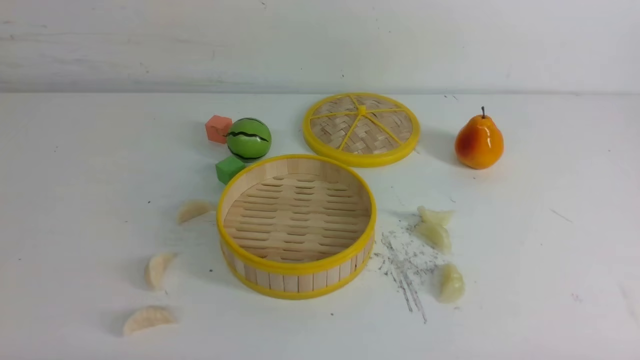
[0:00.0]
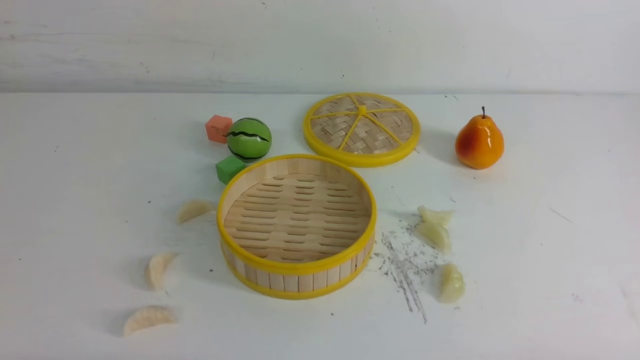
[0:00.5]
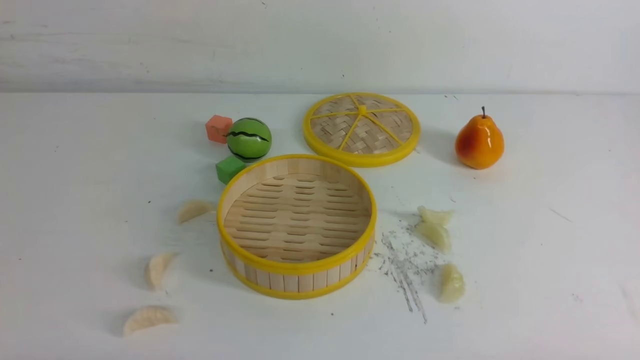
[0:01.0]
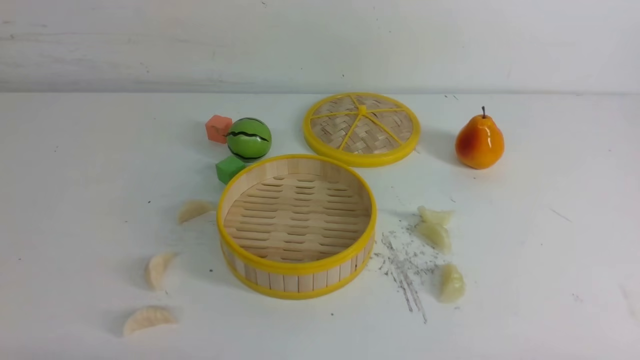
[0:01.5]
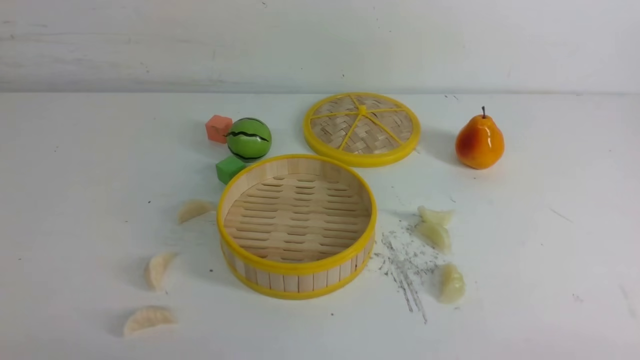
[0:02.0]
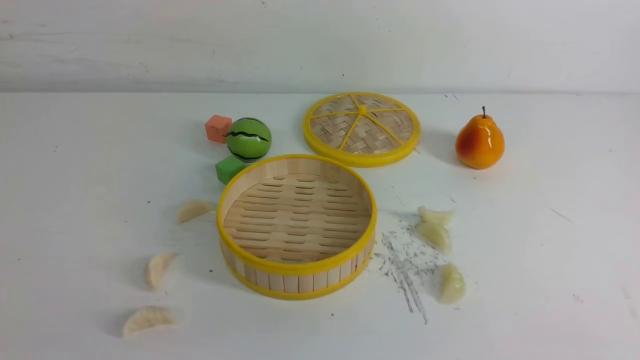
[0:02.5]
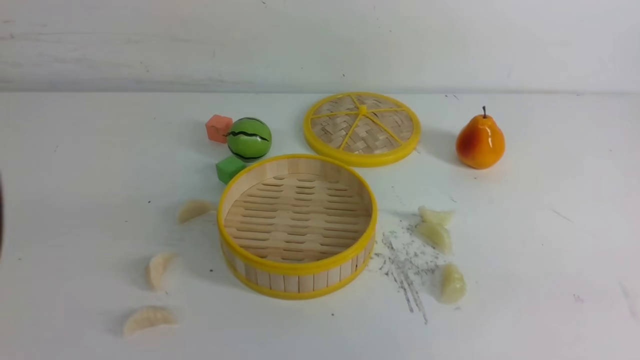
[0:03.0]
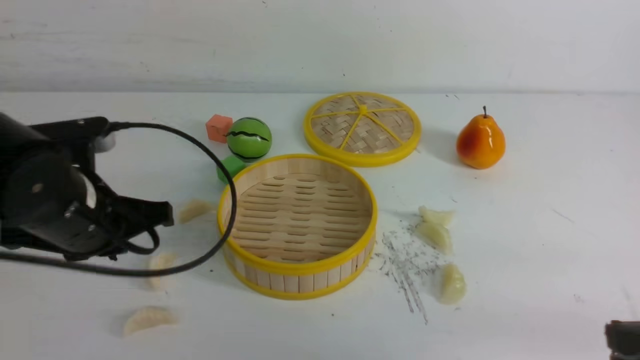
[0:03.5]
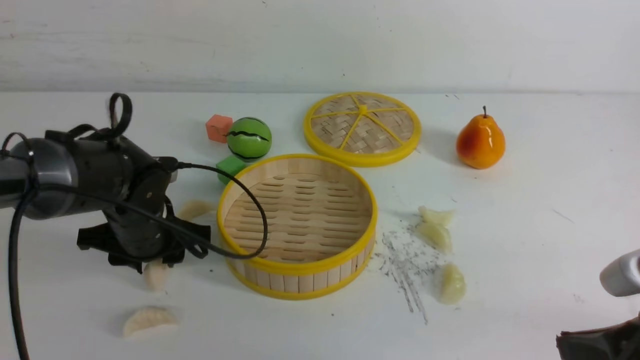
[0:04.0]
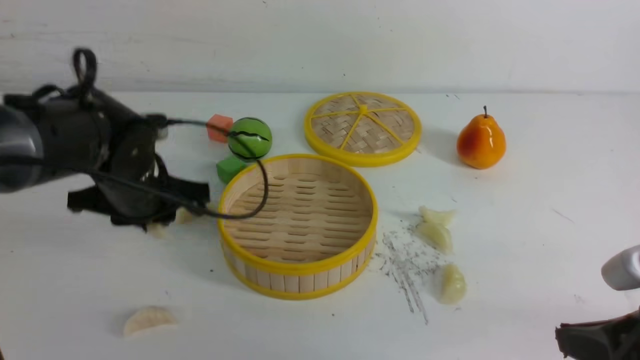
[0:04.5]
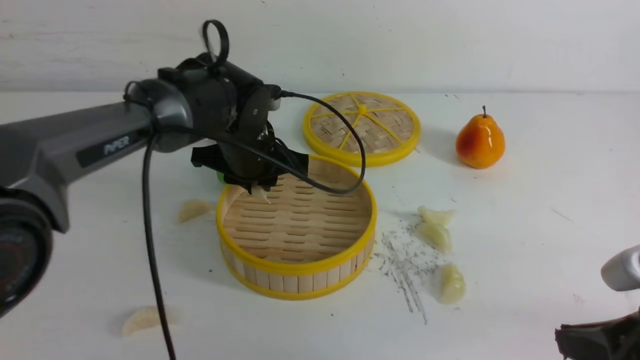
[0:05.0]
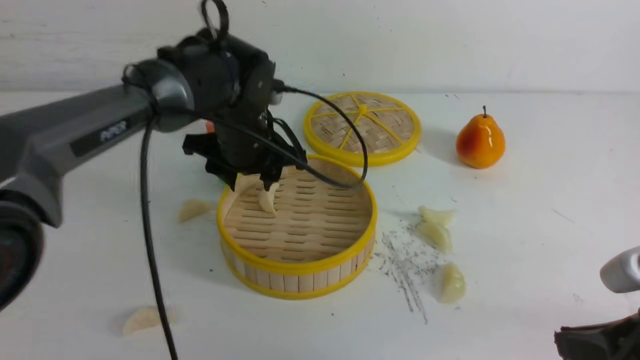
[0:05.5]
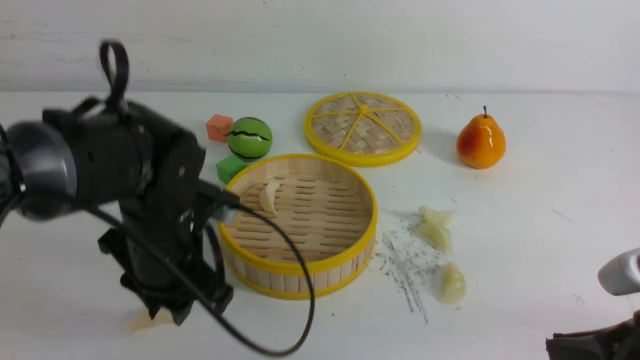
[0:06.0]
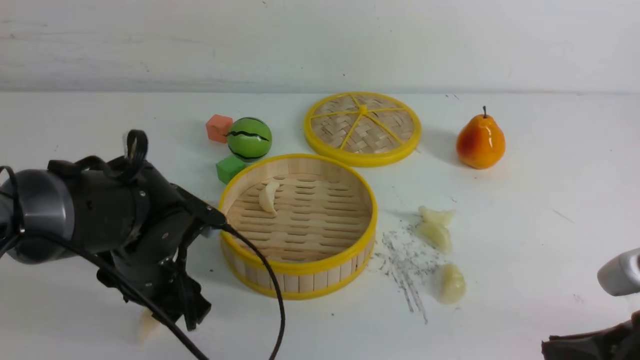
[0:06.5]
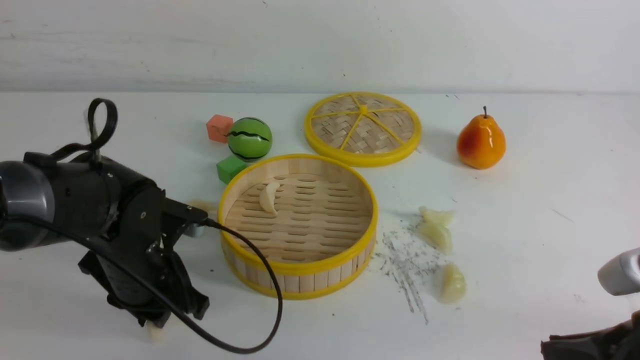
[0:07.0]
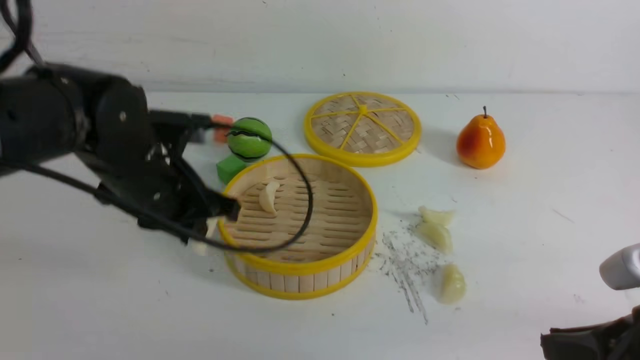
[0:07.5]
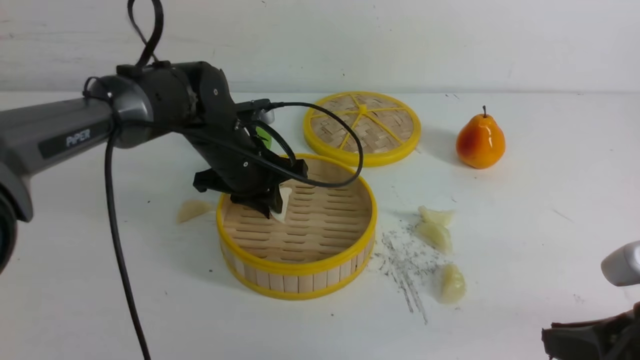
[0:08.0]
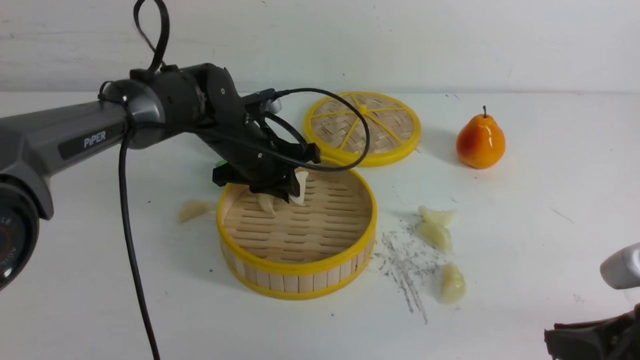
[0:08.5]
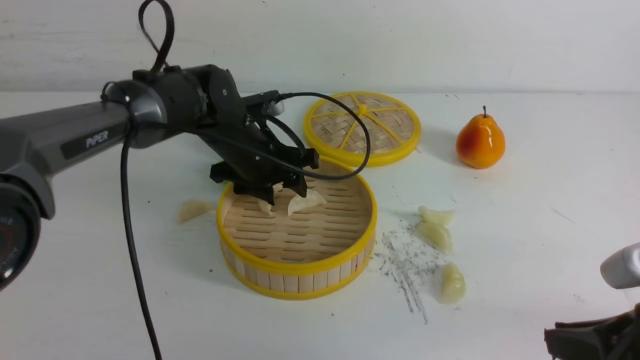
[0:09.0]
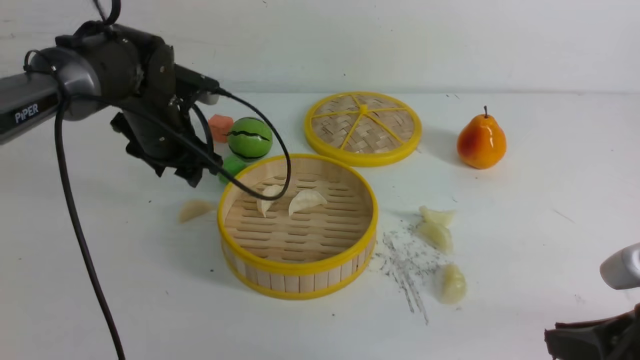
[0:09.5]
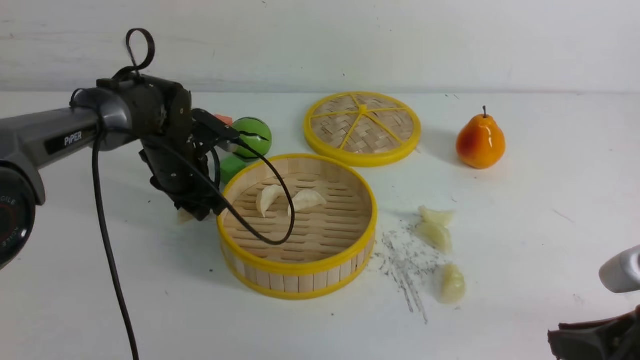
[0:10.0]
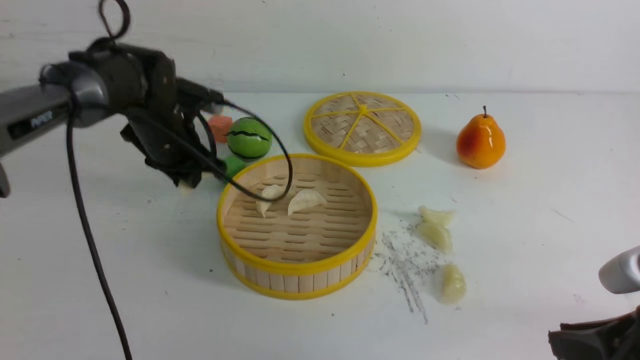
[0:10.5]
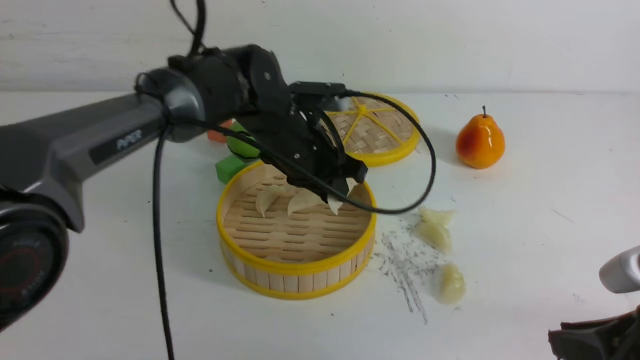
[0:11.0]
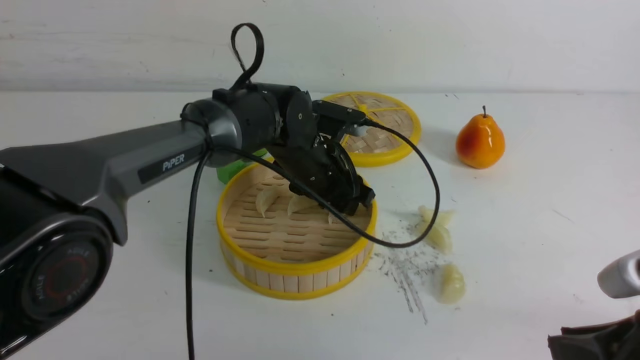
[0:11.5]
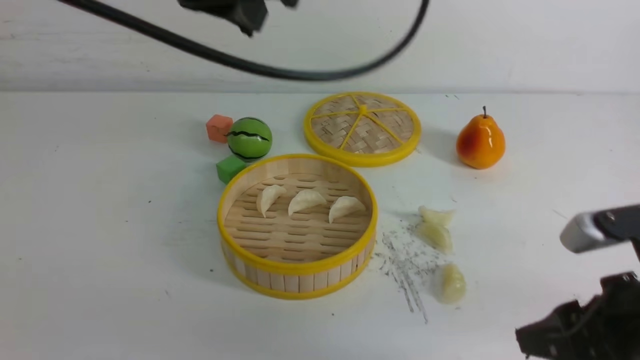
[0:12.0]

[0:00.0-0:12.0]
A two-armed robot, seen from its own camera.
Task of the whole recording: put the dumplings into the steamer on the white table.
Step, 0:00.0 to 0:04.0: use the left arm to grab a dumpling.
Step, 0:05.0 to 0:07.0: use the left arm to grab a dumpling.
Step, 0:07.5 to 0:08.5: use the left arm to put the dumpling into the steamer.
Step, 0:09.0 to 0:10.0: use the left arm to grab a dumpling.
Step, 0:10.5 to 0:11.5: use the left arm to put the dumpling into the steamer.
0:02.0 to 0:04.0: The left gripper heads forward, covering some 30 cm, and opens its fingers. The right gripper moves forward and to the left, some 10 cm.
0:04.0 to 0:06.0: The left gripper goes approximately 5 cm upward.
0:06.0 to 0:08.0: The left gripper shifts approximately 10 cm forward, and closes its fingers.
0:08.0 to 0:10.0: The left gripper heads to the left, covering approximately 10 cm, and opens.
0:10.0 to 0:12.0: The right gripper opens up, while the left gripper heads upward and backward, covering roughly 35 cm, and closes up.

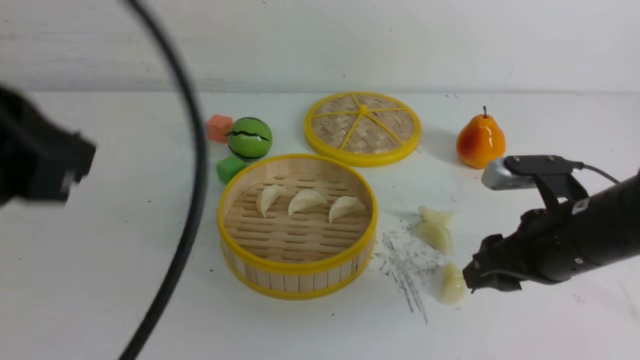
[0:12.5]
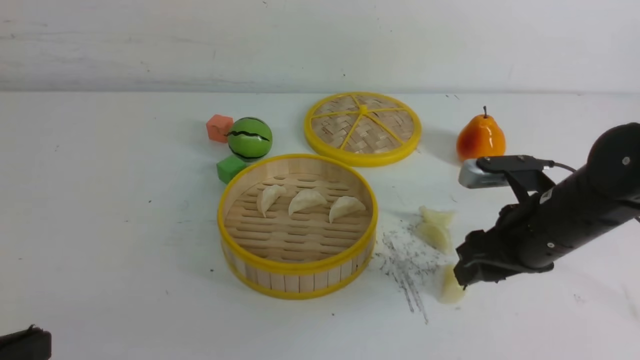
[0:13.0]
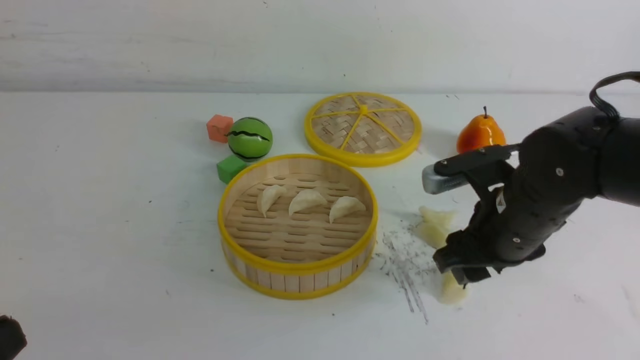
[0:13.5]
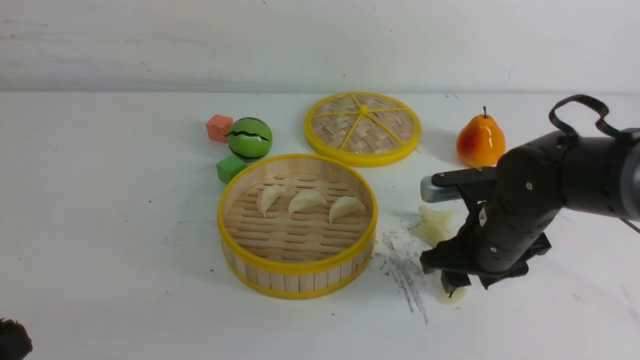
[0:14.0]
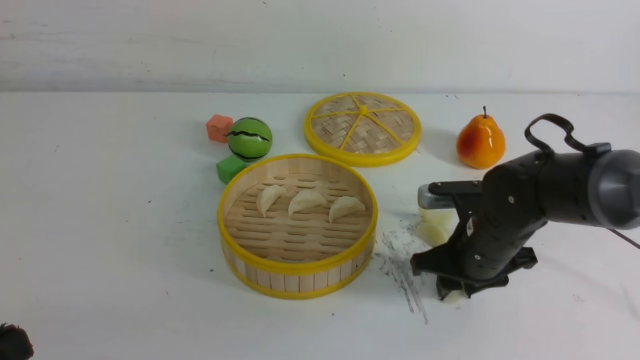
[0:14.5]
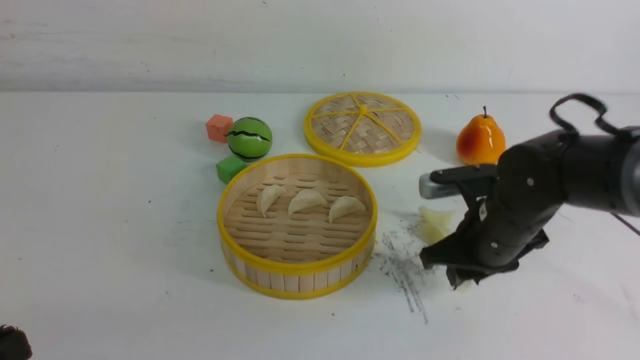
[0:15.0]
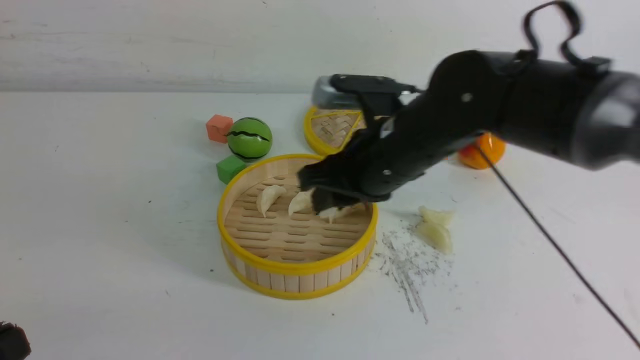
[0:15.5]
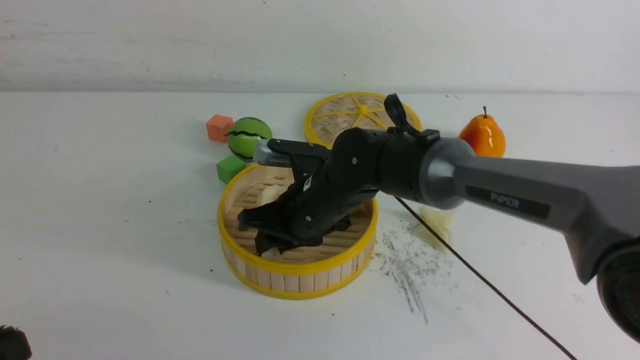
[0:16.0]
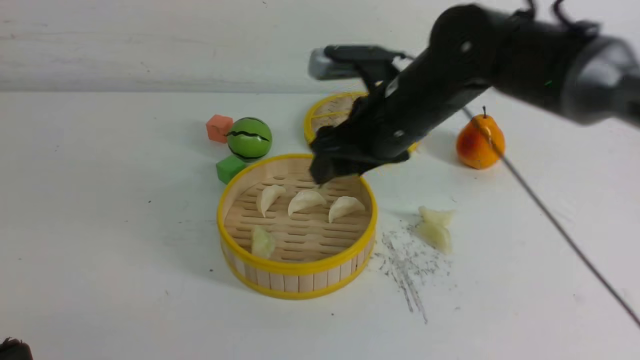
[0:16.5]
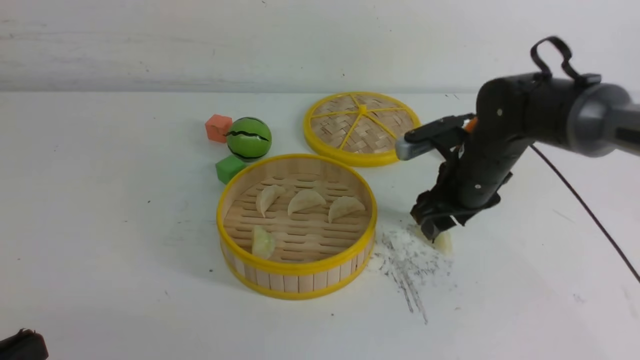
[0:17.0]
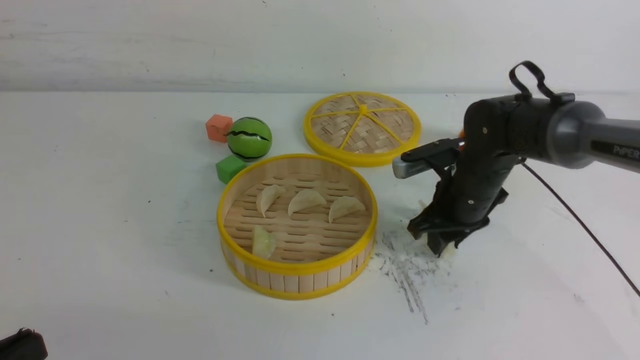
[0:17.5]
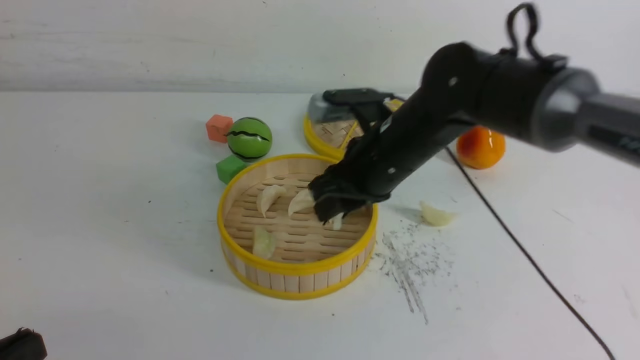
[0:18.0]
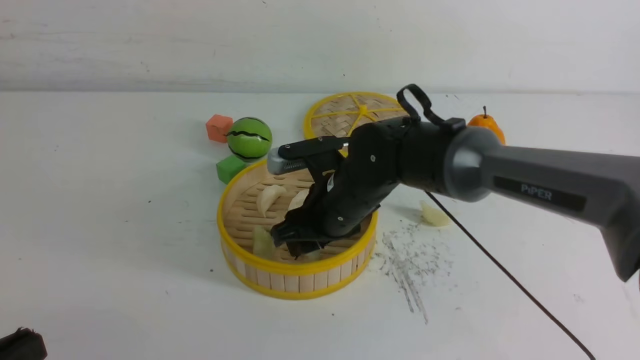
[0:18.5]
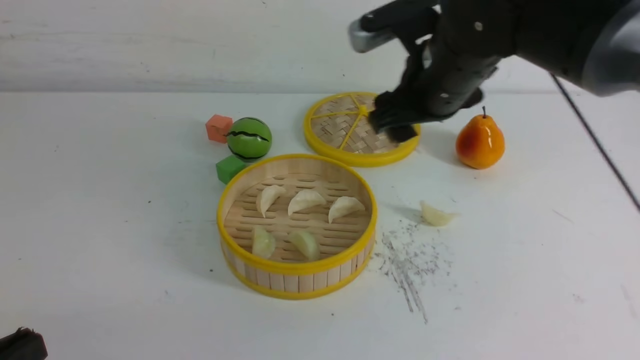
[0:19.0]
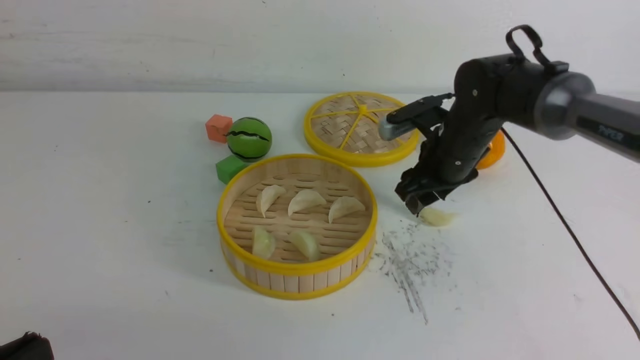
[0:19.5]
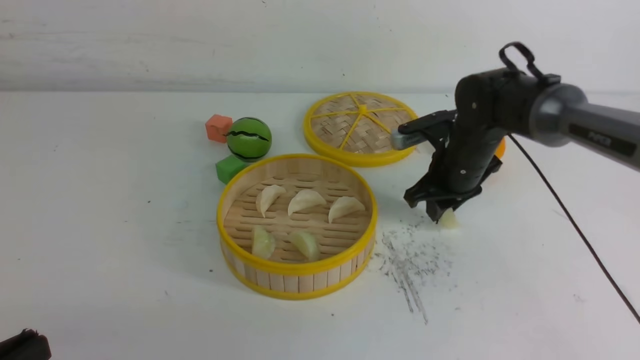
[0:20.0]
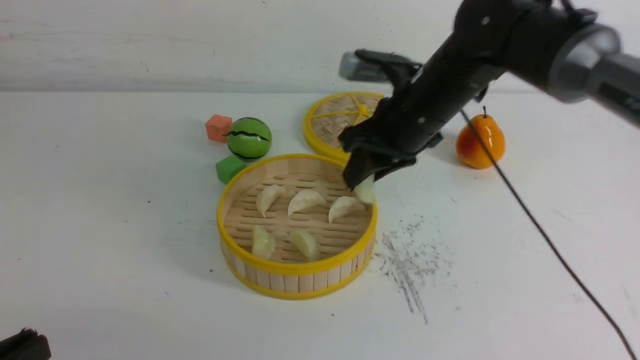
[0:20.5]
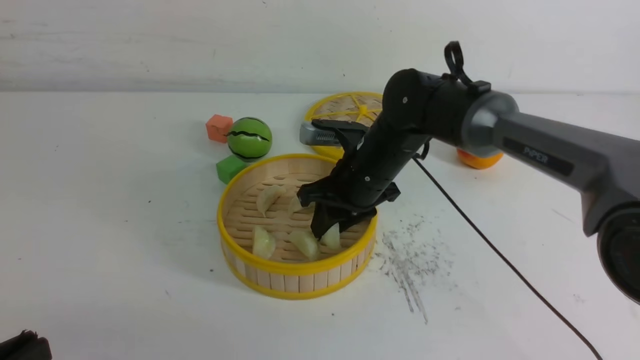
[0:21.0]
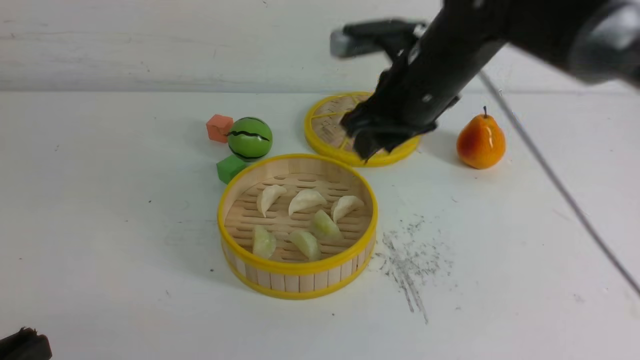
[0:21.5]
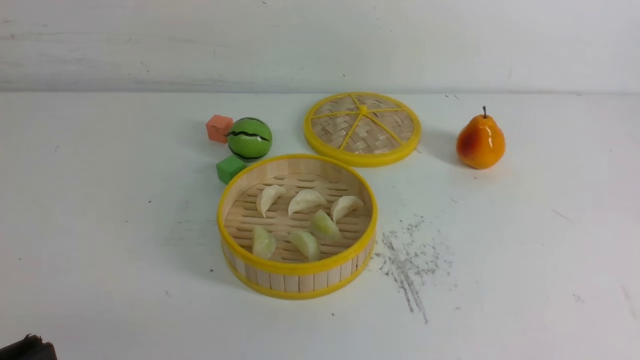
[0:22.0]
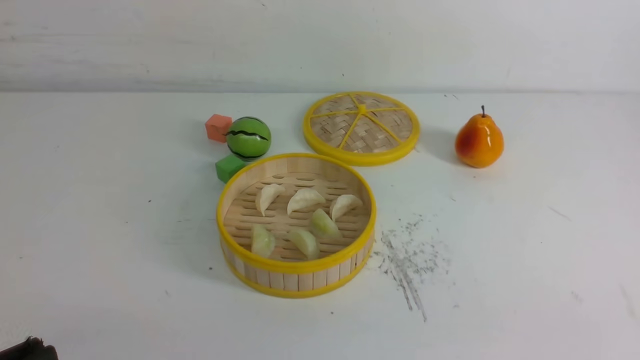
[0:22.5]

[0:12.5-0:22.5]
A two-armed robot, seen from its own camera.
Task of the whole recording: put the dumplings into the steamer on the white table.
Step, 0:12.5 to 0:14.5: use the right arm to grab a dumpling.
Step, 0:15.0 to 0:16.0: use the right arm to put the dumpling into the steamer.
Step, 0:16.5 to 0:17.5: use the right arm to grab a dumpling.
Step, 0:18.0 to 0:18.5: use the right arm to put the dumpling into the steamer.
Step, 0:19.0 to 0:20.0: use the right arm to grab a dumpling.
Step, 0:20.5 to 0:21.0: use the right arm to put the dumpling into the steamer.
0:12.5 to 0:14.5: The left gripper shifts about 15 cm downward and backward. Meanwhile the right gripper travels downward, forward and to the left by some 10 cm.
0:14.5 to 0:16.5: The right gripper heads upward and to the left, covering about 15 cm, and opens its fingers.
0:16.5 to 0:18.5: The right gripper shifts roughly 10 cm downward and to the left.
0:18.5 to 0:20.5: The right gripper goes roughly 10 cm to the right and upward, and closes up.
0:20.5 to 0:22.5: The right gripper heads backward and to the right, covering about 40 cm, and closes up.
